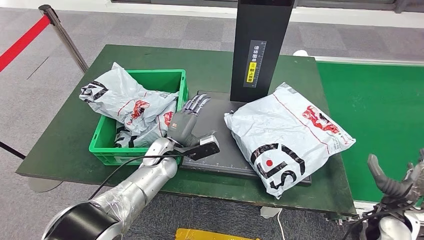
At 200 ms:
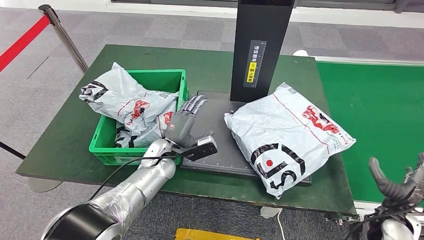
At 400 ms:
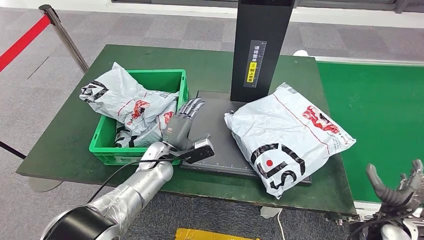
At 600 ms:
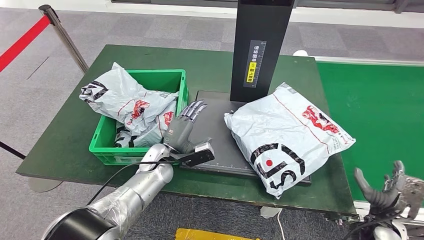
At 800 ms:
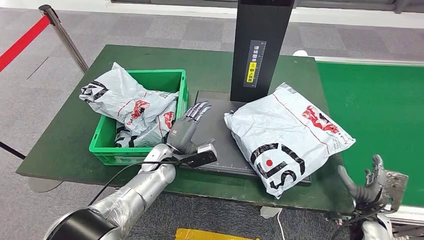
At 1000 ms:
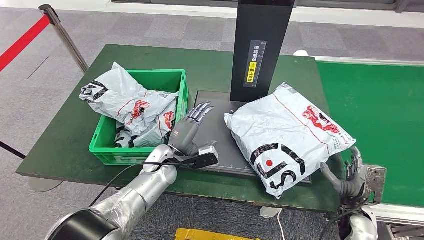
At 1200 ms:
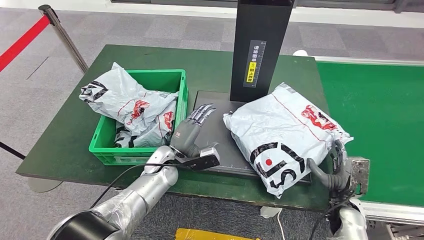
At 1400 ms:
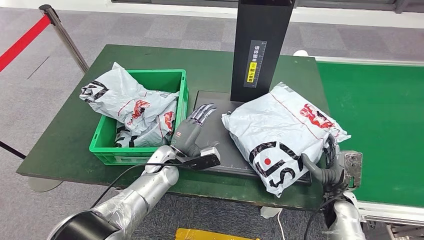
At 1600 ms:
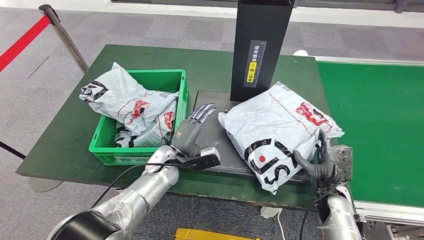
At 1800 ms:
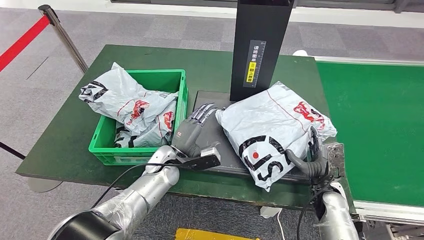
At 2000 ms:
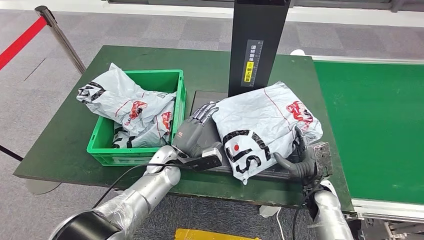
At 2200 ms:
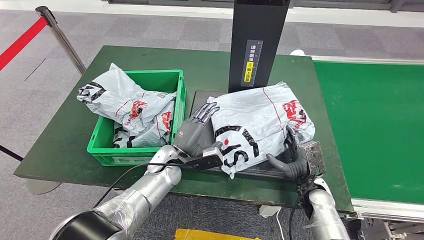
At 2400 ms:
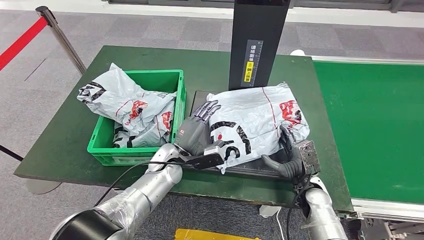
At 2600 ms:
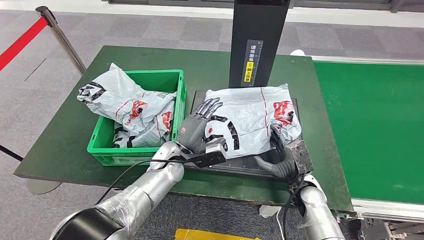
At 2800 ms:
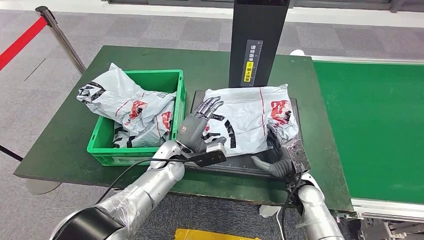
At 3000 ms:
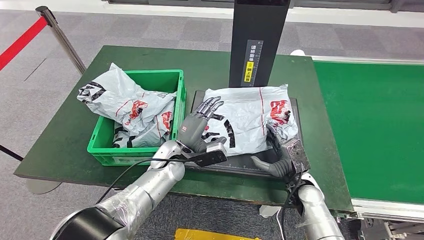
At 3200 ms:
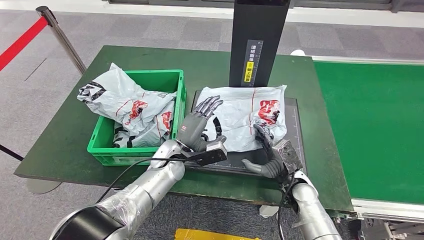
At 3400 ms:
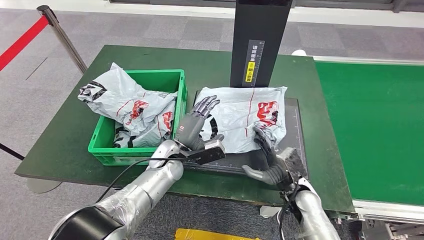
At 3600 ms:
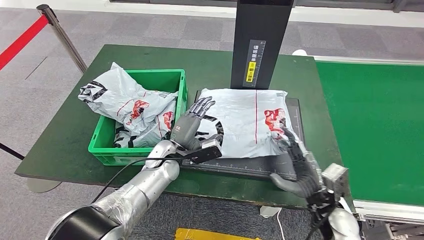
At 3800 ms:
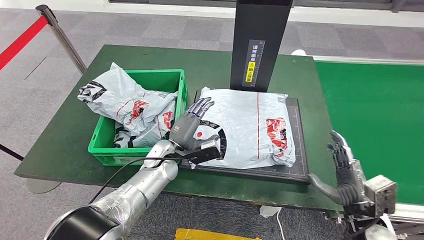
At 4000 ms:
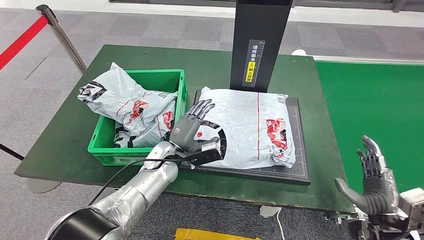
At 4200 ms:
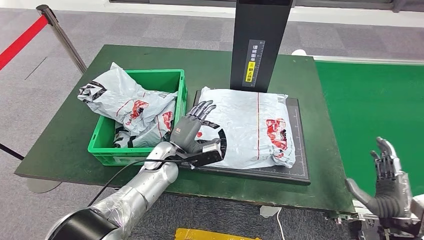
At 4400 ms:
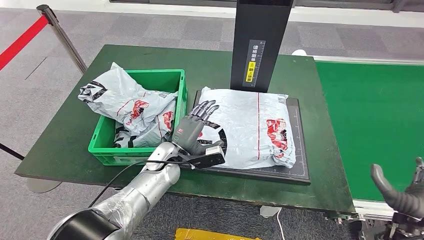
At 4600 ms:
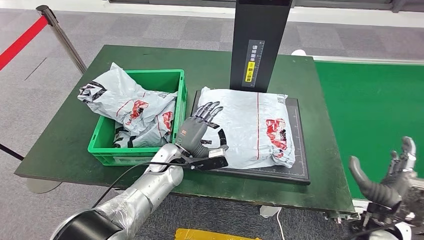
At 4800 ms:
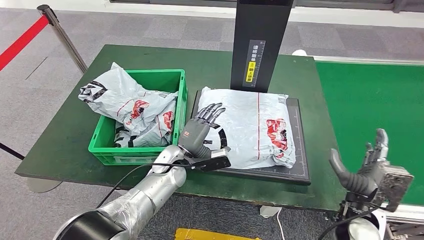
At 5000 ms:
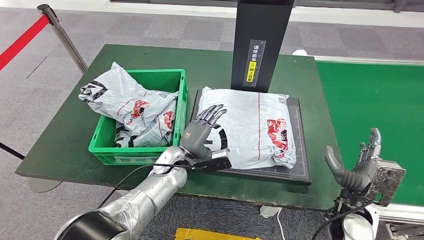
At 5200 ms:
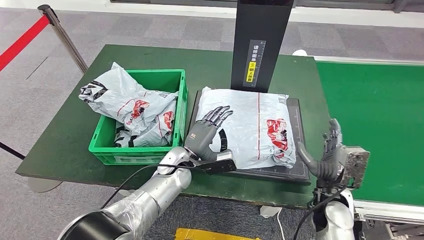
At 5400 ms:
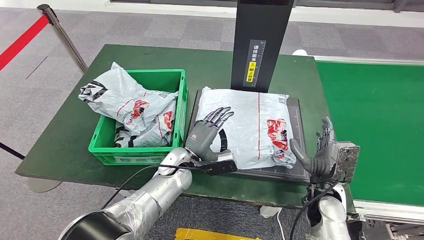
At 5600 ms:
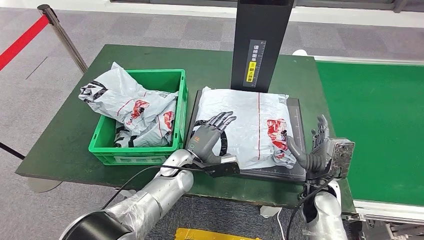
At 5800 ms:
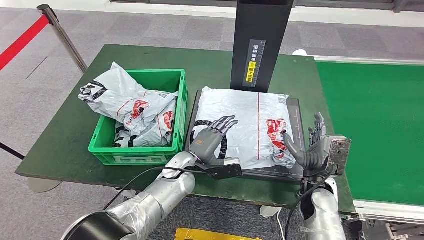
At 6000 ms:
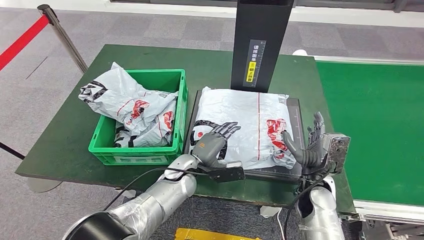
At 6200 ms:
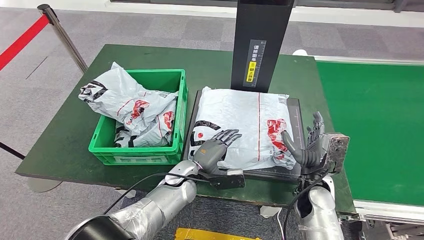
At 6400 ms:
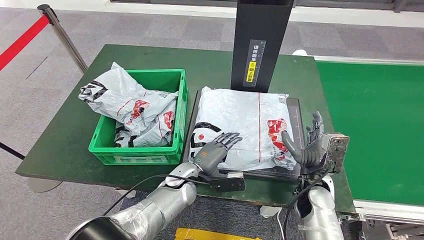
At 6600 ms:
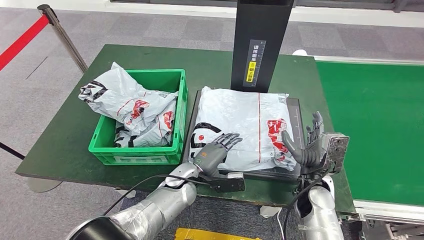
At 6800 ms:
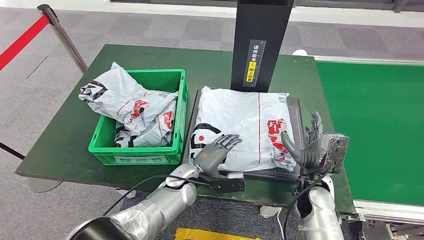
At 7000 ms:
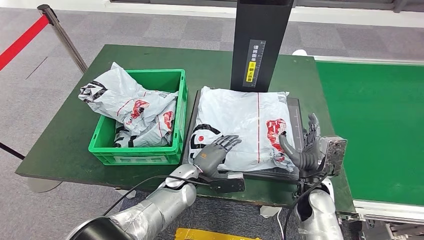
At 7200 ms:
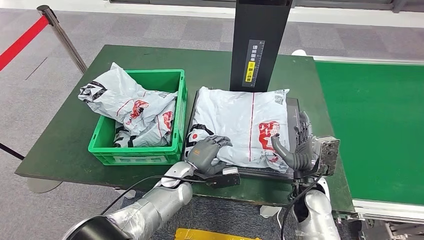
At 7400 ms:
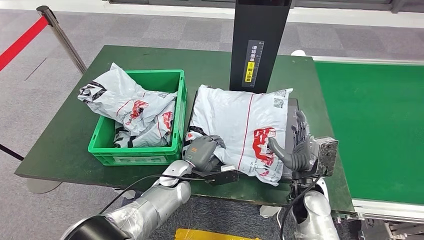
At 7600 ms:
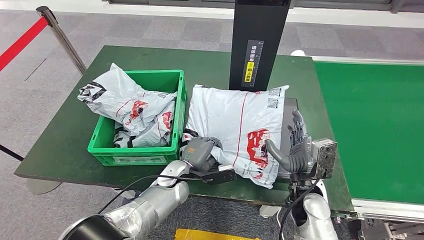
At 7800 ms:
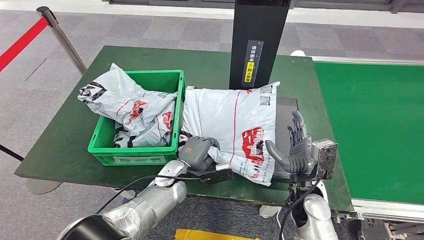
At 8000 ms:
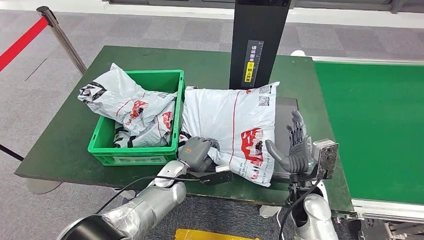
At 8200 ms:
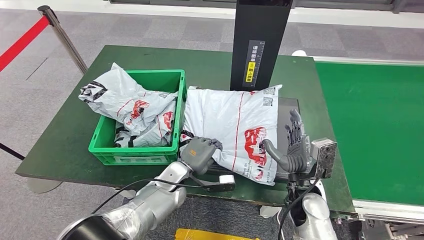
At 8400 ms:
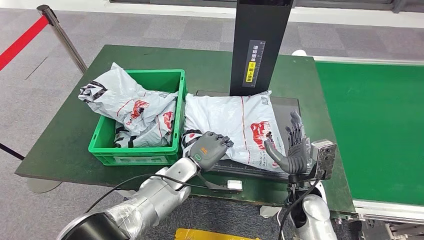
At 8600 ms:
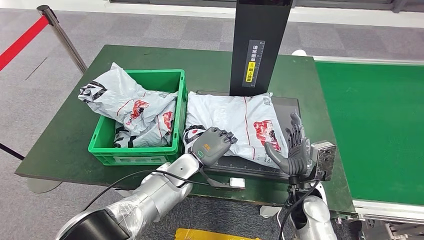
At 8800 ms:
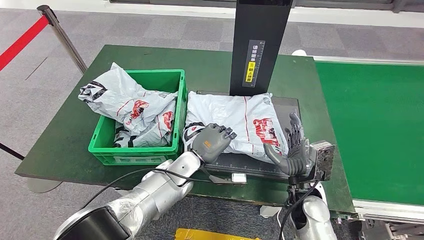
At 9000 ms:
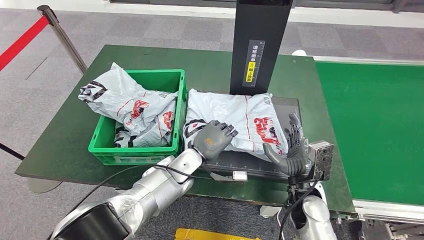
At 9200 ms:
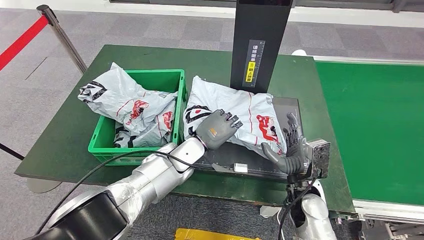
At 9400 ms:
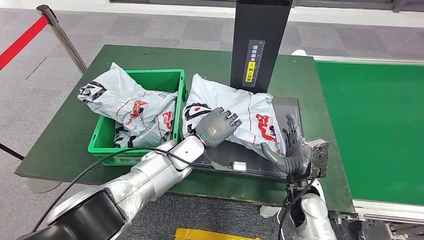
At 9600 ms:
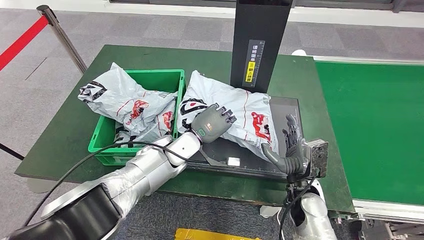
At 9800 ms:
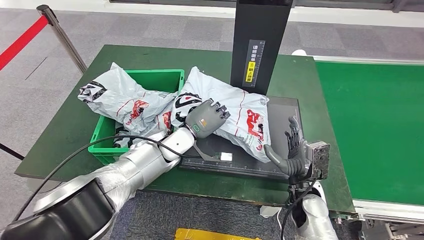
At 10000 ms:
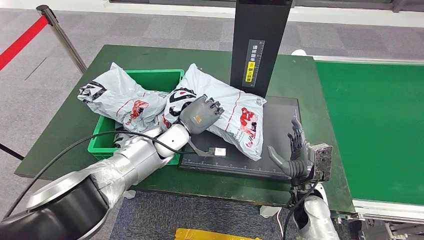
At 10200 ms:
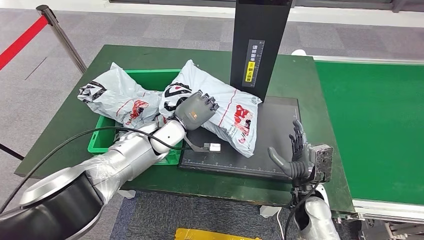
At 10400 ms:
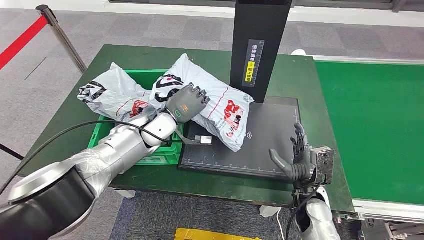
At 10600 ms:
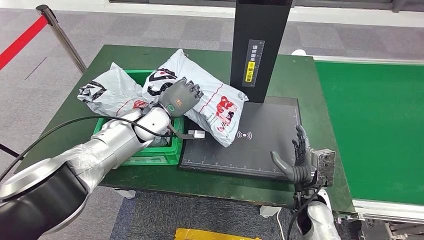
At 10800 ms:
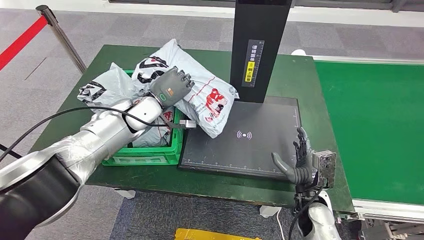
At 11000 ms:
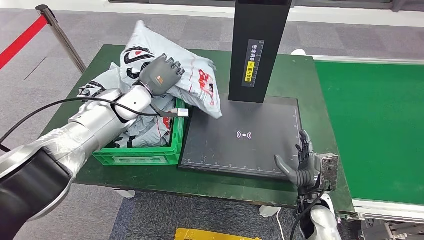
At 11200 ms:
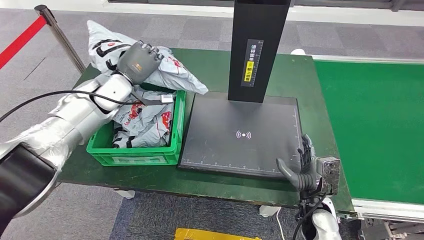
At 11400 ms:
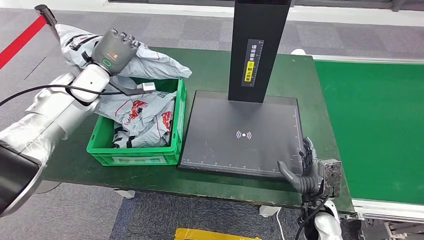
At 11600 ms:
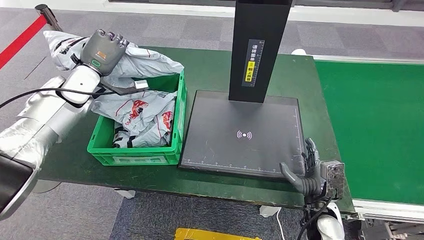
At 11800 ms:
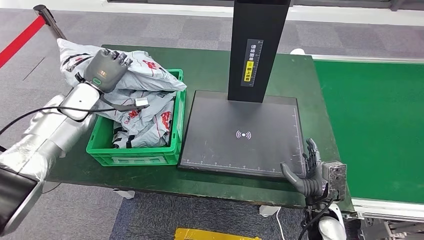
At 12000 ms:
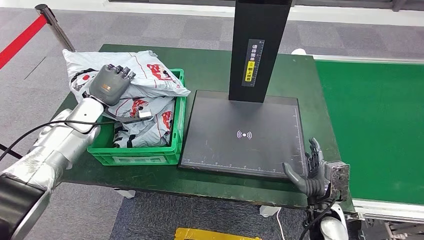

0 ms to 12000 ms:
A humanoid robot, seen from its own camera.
Step, 0 ms to 11200 ms: Pick up the parcel from the inbound machine.
0 ms to 1600 ms: The right hand heads to the left and forward, covering roughly 10 cm.
3000 ms to 4400 ms: The right hand moves to the right, backward and upward, roughly 20 cm.
4400 ms to 6000 ms: The left hand travels to the right by approximately 5 cm, while the right hand heads to the left and forward, covering about 20 cm.
7600 ms to 9000 ms: The left hand is displaced upward by approximately 5 cm.

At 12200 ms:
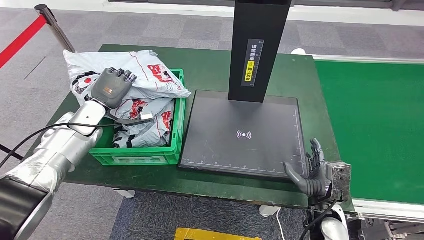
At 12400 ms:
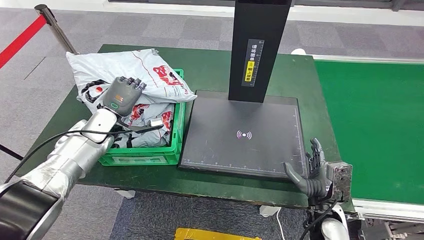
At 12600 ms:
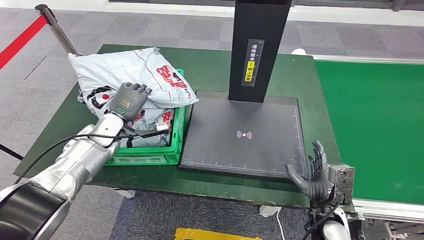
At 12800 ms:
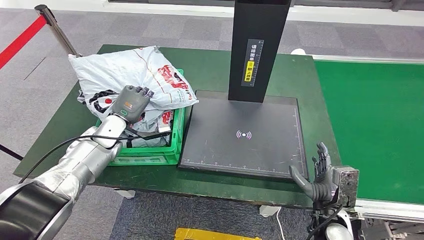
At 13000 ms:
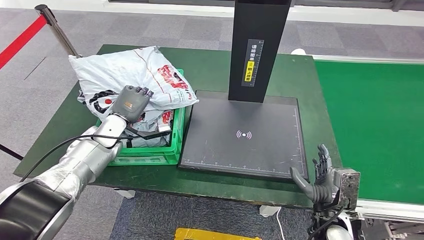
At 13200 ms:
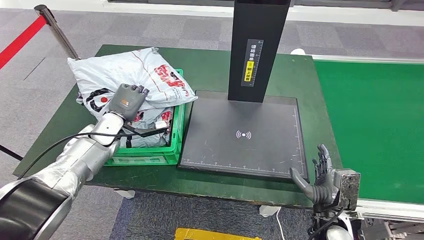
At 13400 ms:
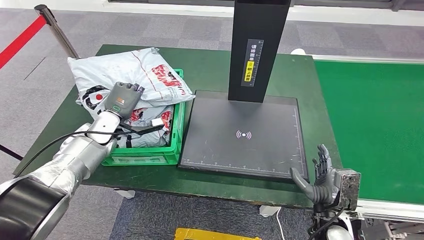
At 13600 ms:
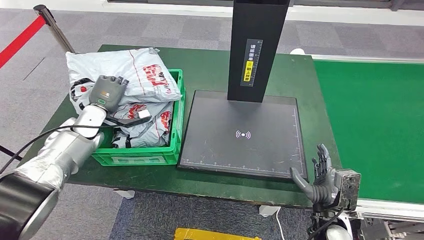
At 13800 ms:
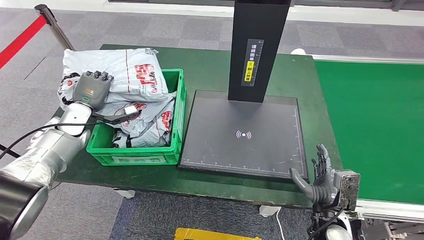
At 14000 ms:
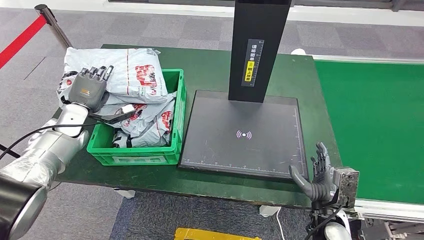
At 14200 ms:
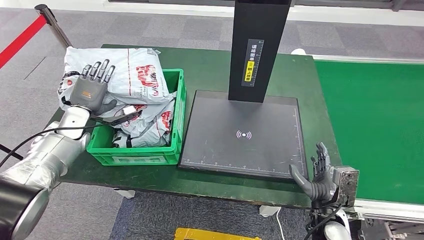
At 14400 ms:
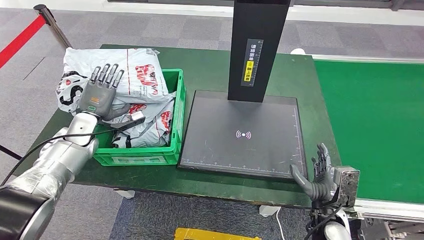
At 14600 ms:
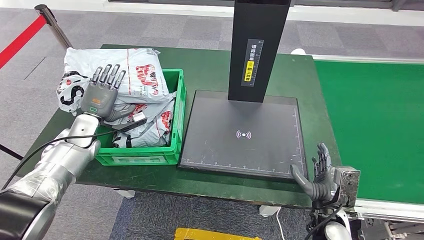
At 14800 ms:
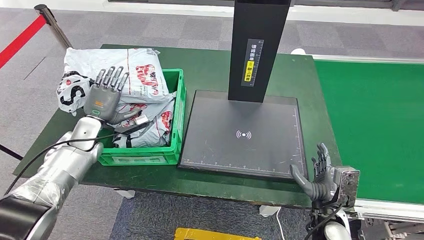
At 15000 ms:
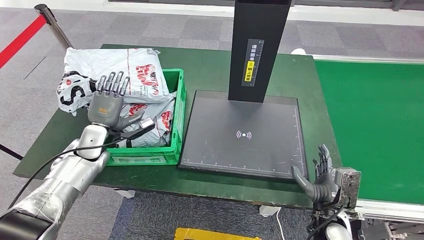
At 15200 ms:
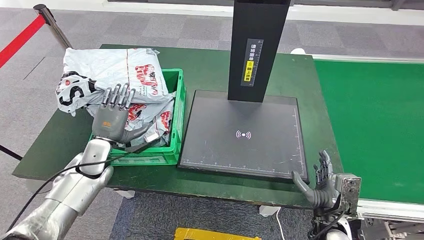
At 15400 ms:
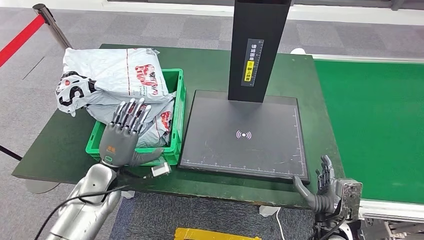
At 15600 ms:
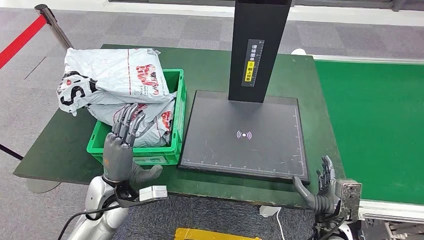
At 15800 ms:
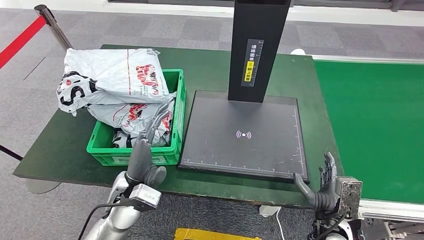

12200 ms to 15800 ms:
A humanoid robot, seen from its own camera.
Step, 12200 ms to 15800 ms: Place the parcel into the delivery box.
12200 ms to 14000 ms: The left hand shifts about 5 cm to the left.
14000 ms to 15800 ms: The left hand shifts about 30 cm to the right and backward.
